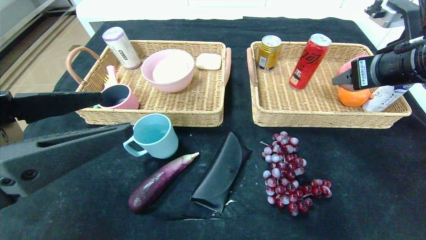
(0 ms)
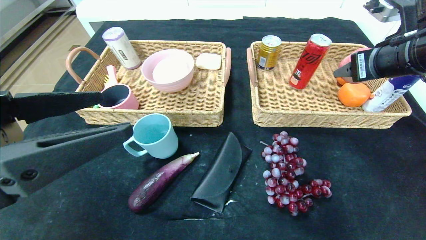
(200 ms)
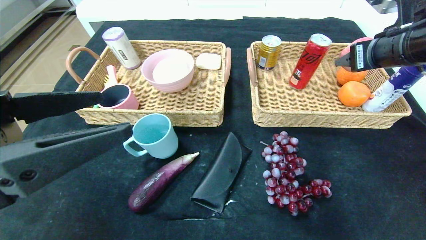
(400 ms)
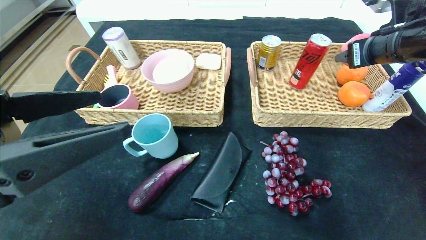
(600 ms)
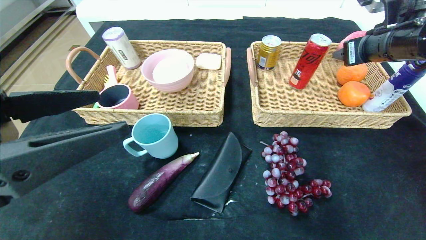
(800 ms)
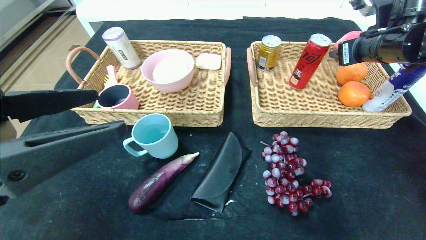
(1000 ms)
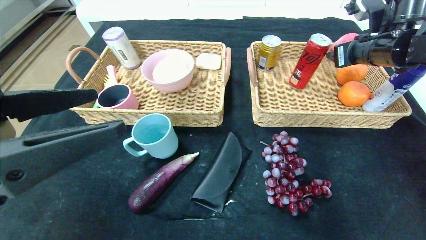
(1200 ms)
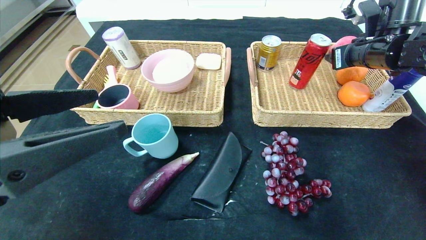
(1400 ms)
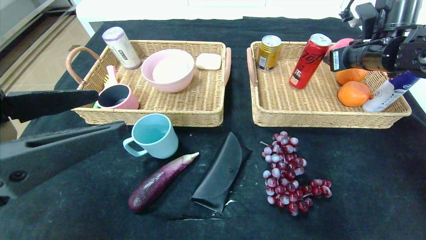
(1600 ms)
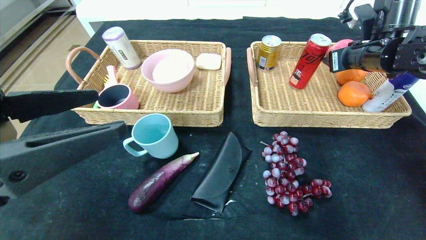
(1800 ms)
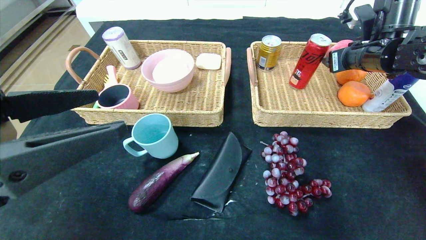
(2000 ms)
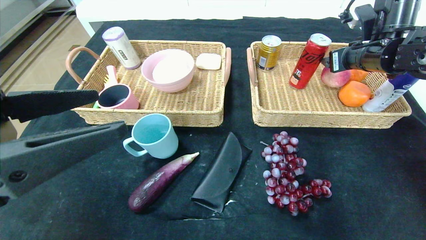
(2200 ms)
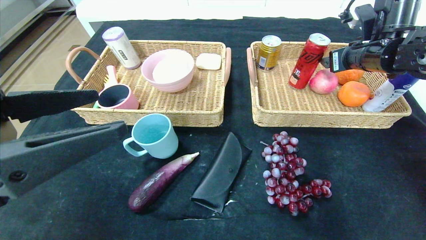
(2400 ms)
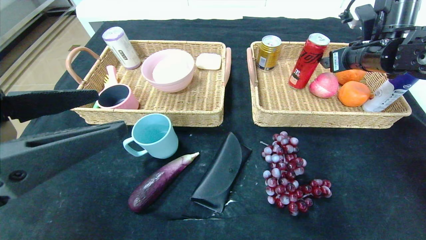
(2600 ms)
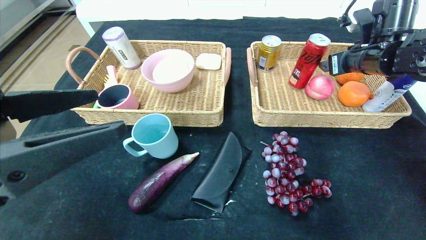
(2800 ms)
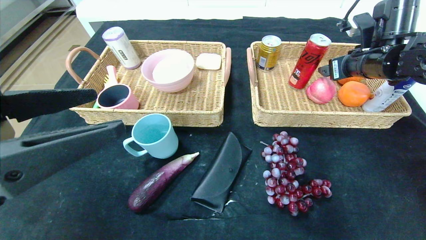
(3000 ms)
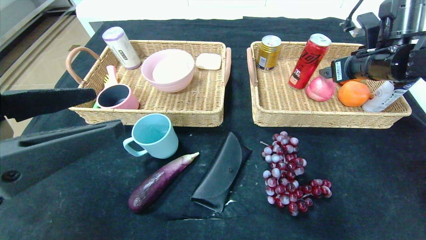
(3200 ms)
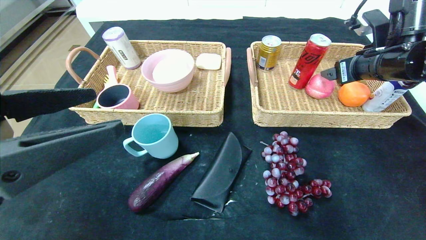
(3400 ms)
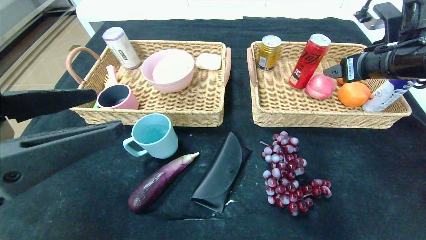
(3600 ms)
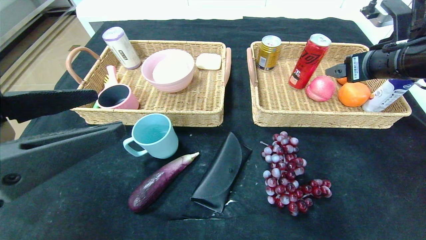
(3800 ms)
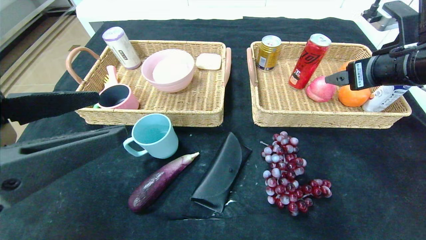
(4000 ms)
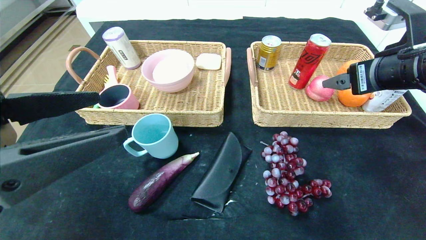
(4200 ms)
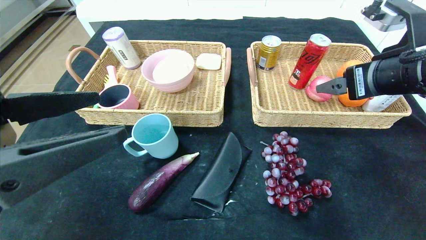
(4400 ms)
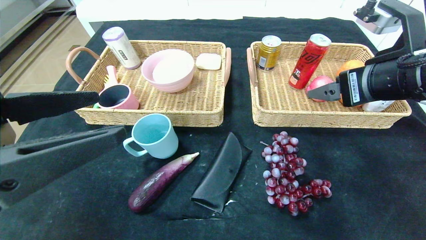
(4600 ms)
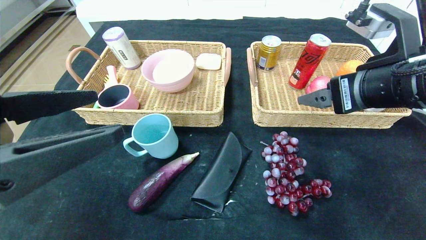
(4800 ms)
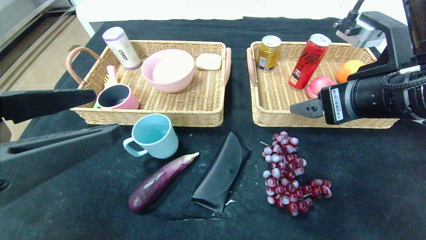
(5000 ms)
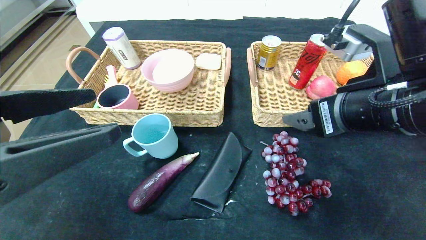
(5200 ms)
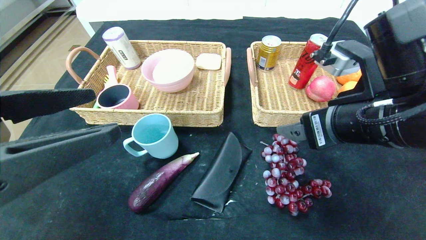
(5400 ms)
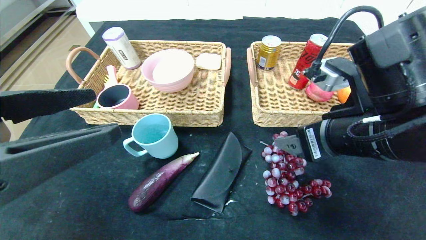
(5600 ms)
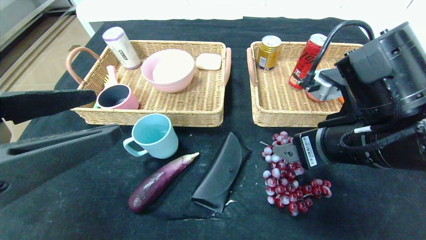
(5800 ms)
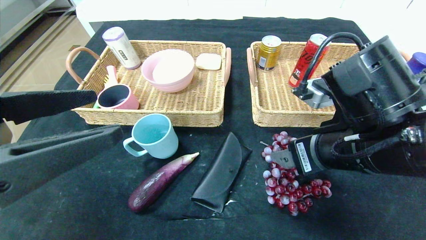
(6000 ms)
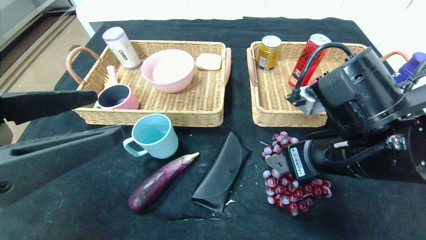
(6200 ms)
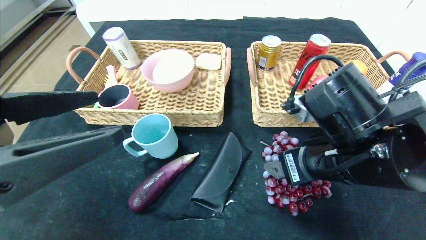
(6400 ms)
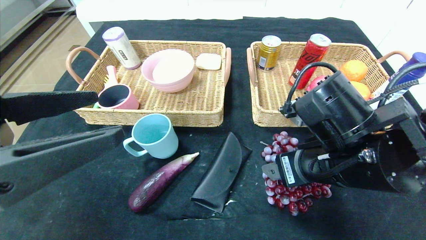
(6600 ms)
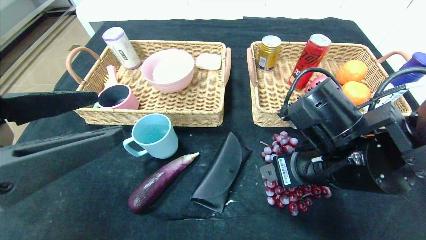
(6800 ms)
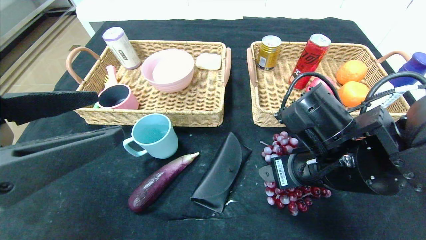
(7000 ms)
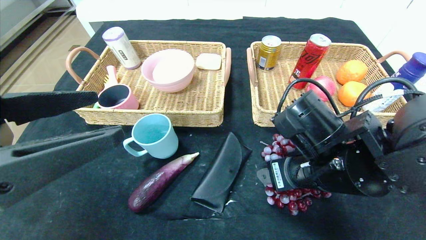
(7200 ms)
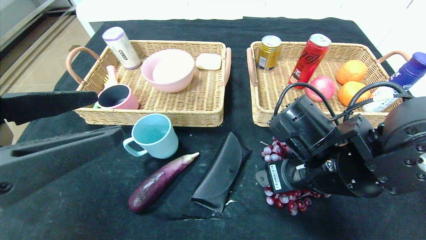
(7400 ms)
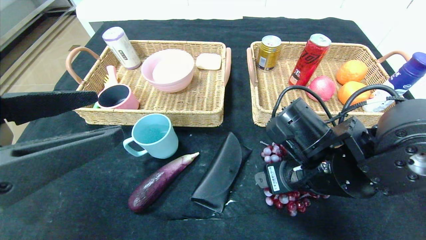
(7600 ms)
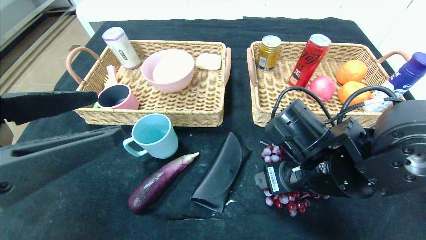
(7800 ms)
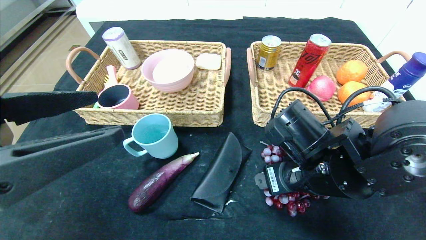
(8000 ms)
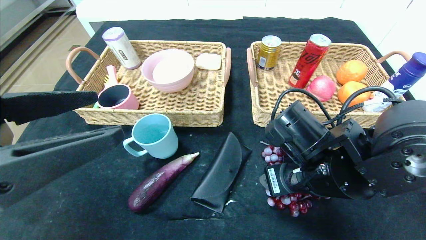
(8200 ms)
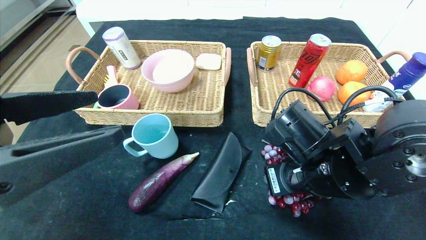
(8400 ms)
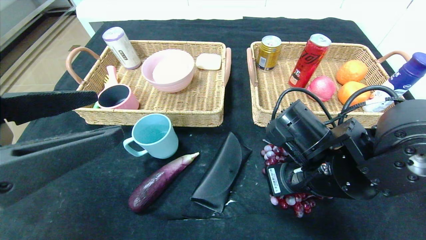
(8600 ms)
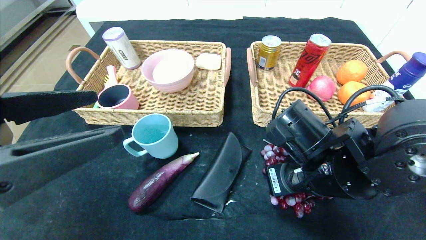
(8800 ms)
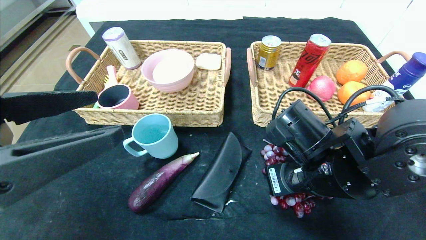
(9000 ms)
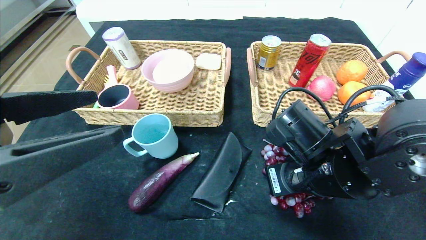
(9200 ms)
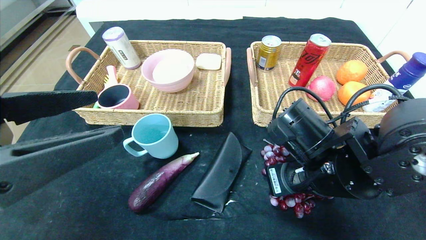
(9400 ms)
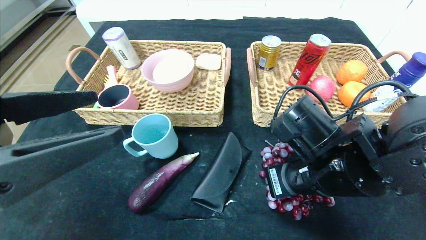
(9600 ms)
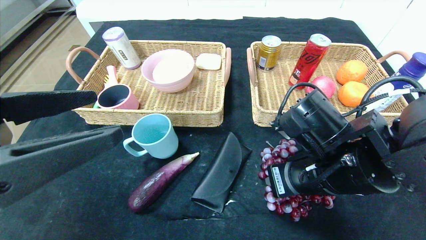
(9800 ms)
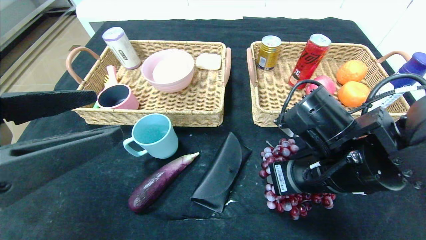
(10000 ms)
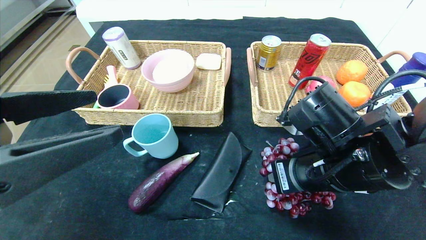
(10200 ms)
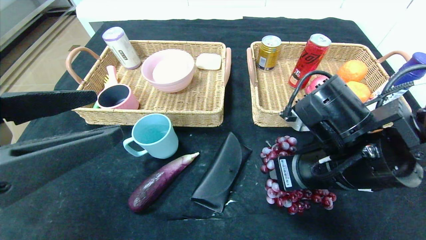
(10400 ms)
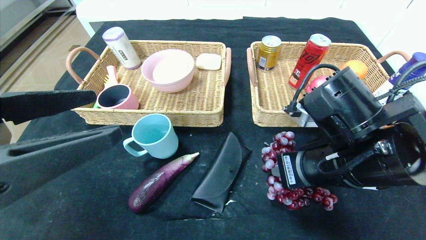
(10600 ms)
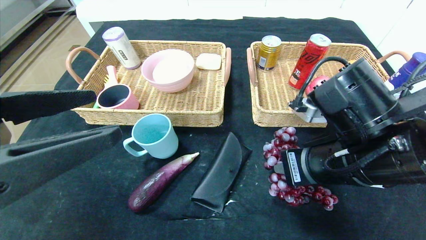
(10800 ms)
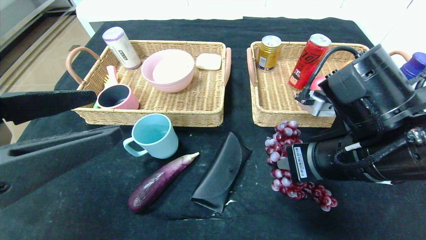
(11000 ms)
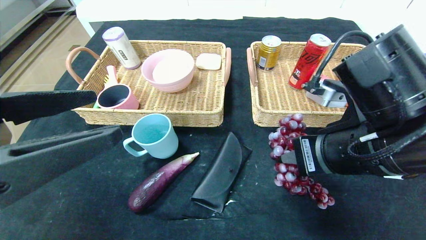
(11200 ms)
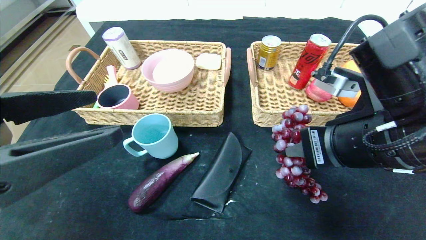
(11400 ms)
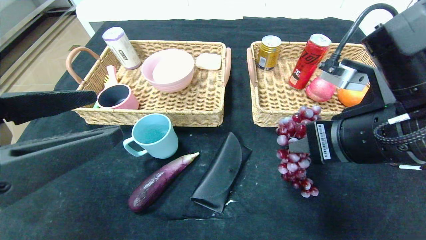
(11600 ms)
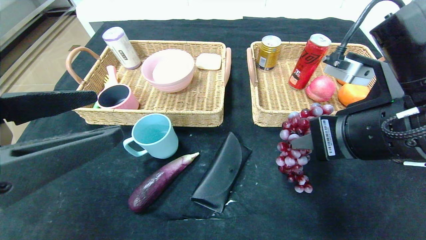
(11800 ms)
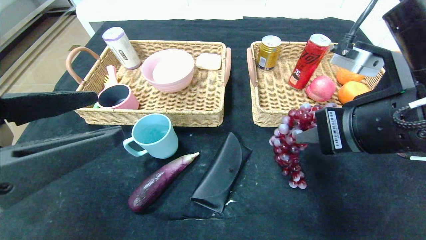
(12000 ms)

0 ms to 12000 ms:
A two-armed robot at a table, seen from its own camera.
Step, 0 ms to 2400 ms: Grasp the peach and put it in the right basket.
0 ms to 1600 ms: The right gripper heads forward, covering some 10 cm.
1600 ms to 3000 ms: The grippers make only small movements.
3000 ms to 4400 ms: The right gripper shifts about 15 cm backward.
4400 ms to 6000 ms: The right gripper is displaced to the left and downward by roughly 10 cm.
6000 ms to 7600 ms: The right gripper is displaced downward by some 5 cm.
7600 ms to 9000 ms: The right gripper closes.
9000 ms to 10400 ms: There are only small adjustments of the grippers.
10400 ms to 12000 ms: The right gripper heads upward, covering about 10 cm.

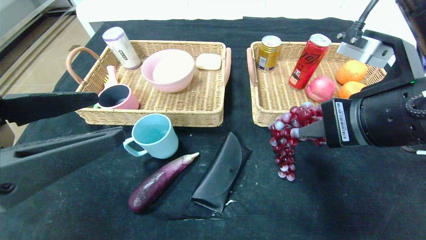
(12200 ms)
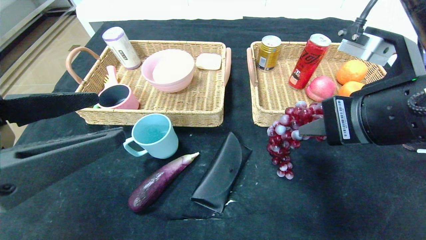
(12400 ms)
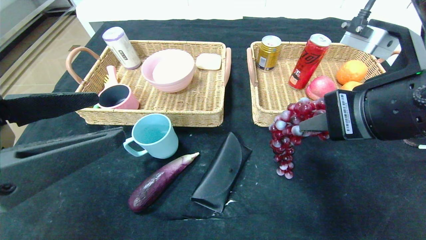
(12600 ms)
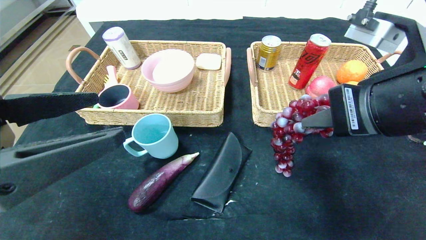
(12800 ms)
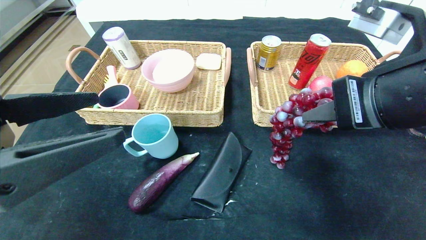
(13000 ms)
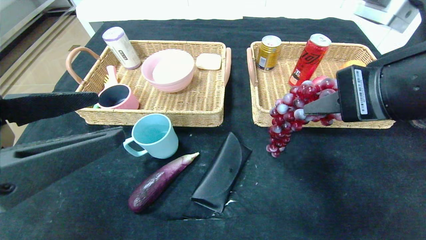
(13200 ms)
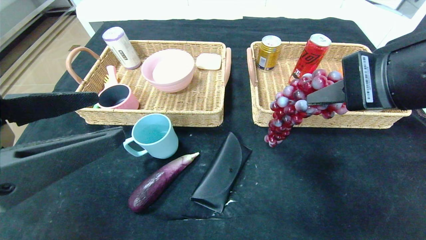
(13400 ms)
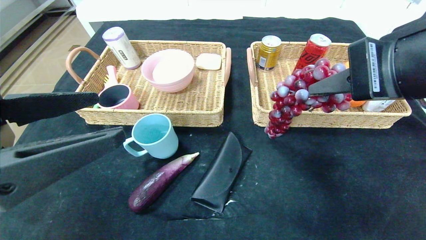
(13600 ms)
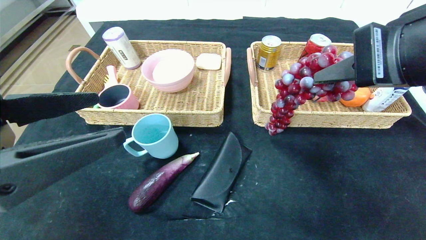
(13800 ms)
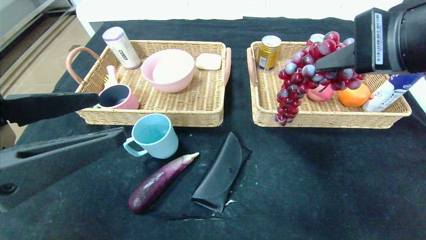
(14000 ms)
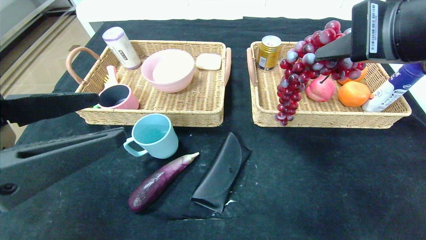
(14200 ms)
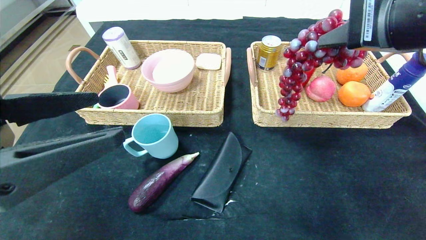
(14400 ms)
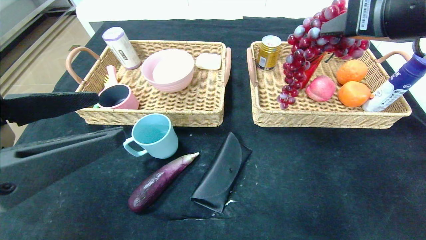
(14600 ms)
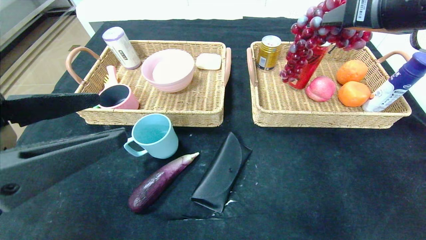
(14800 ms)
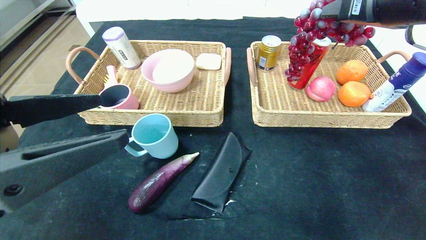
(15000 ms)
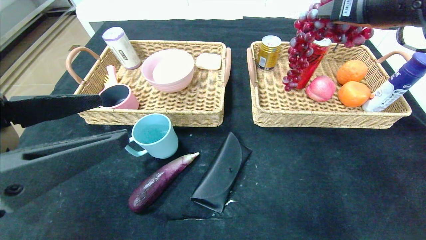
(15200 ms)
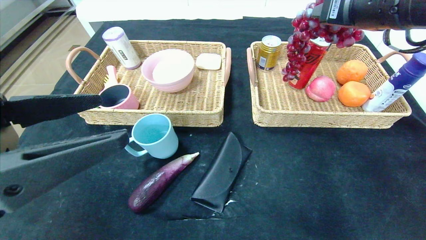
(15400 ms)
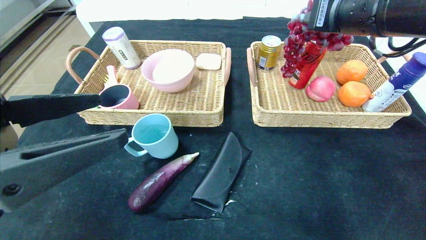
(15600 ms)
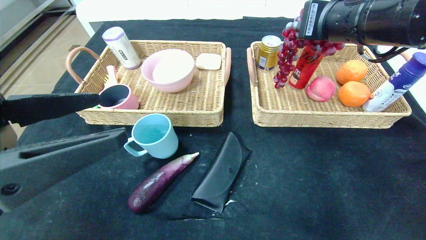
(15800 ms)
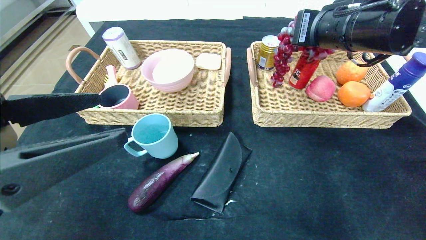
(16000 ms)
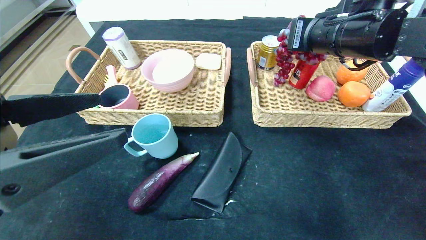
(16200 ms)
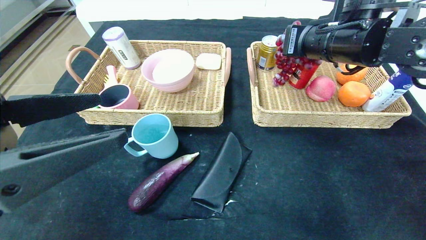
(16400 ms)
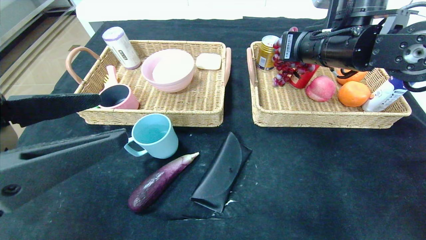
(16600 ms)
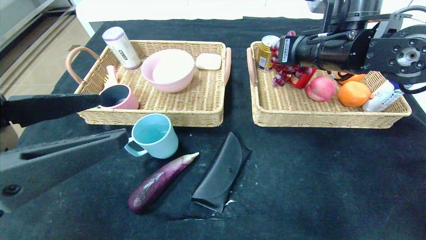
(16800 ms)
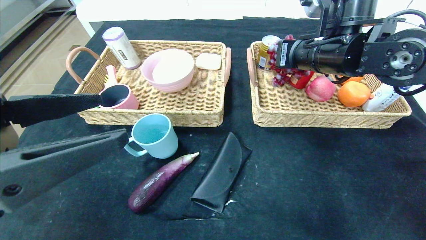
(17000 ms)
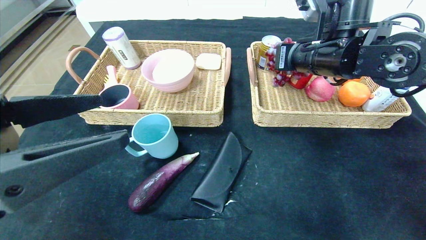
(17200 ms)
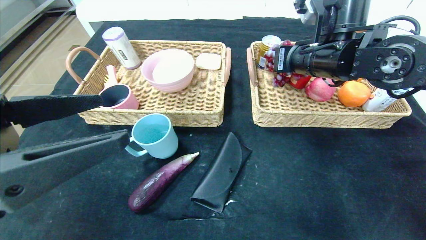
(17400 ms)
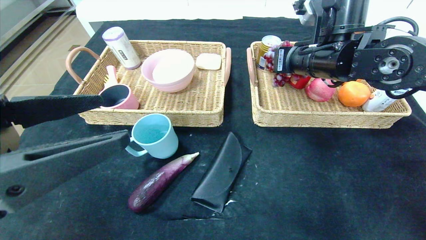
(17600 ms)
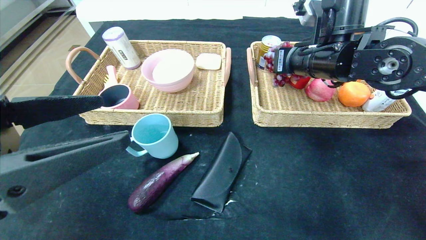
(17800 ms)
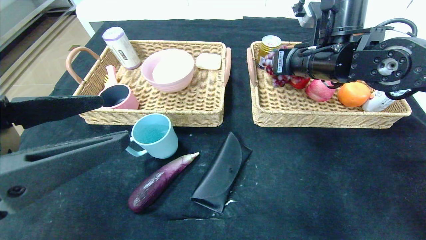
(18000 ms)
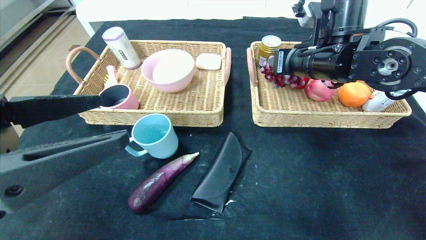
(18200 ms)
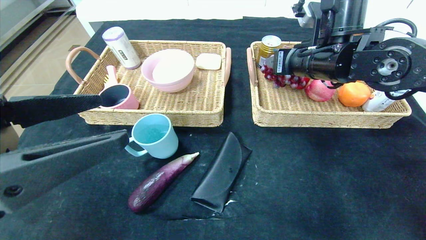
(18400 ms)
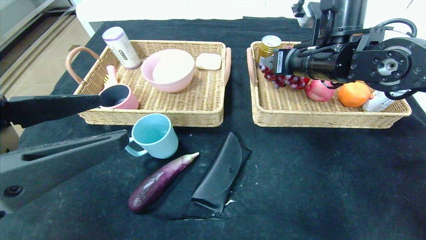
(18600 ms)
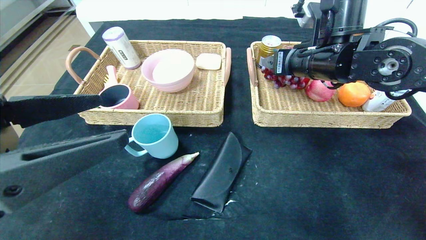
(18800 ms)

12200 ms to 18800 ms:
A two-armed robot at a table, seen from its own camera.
12200 ms to 13800 ms: The right gripper is displaced upward by approximately 5 cm.
13800 ms to 15400 ms: The right gripper is displaced forward by roughly 10 cm.
15400 ms to 17200 ms: The right gripper shifts about 10 cm forward and downward.
17200 ms to 18800 ms: The right gripper opens up.
